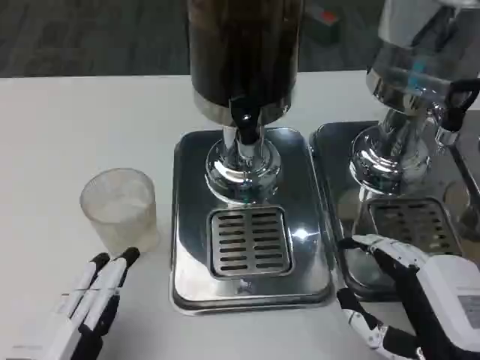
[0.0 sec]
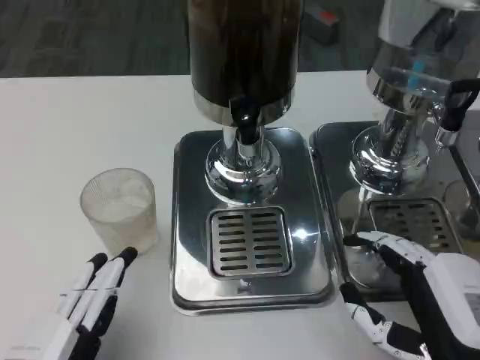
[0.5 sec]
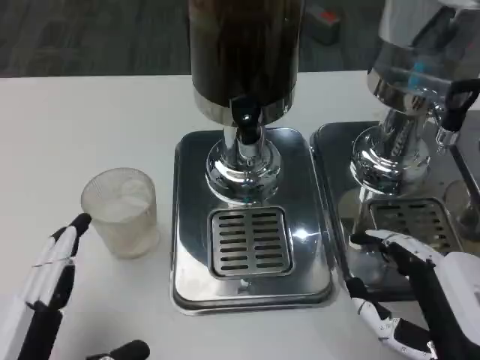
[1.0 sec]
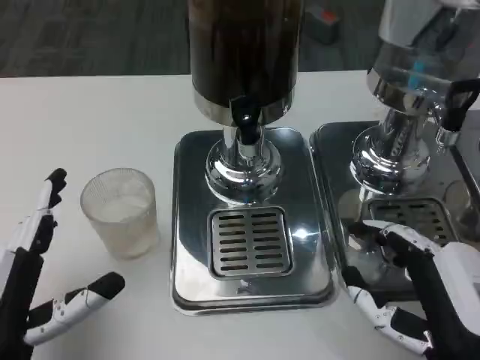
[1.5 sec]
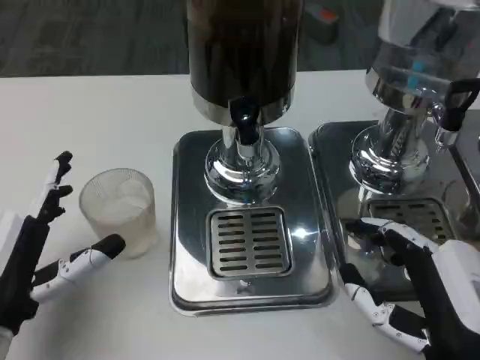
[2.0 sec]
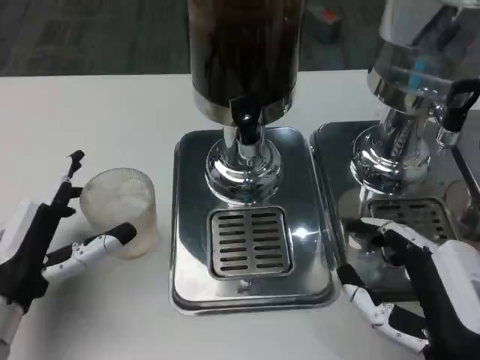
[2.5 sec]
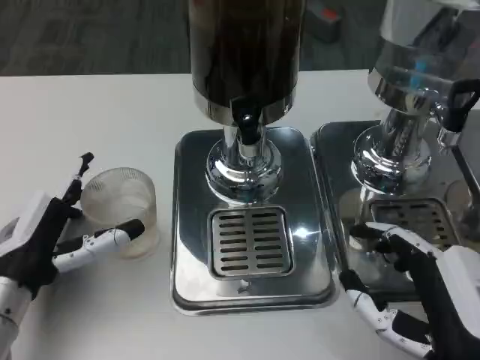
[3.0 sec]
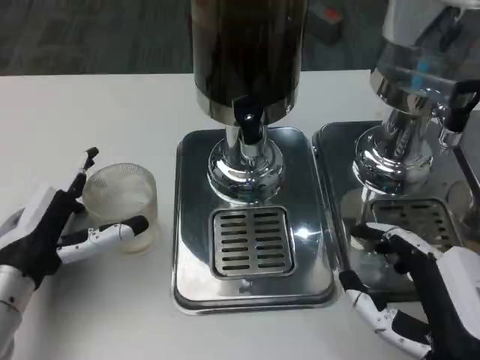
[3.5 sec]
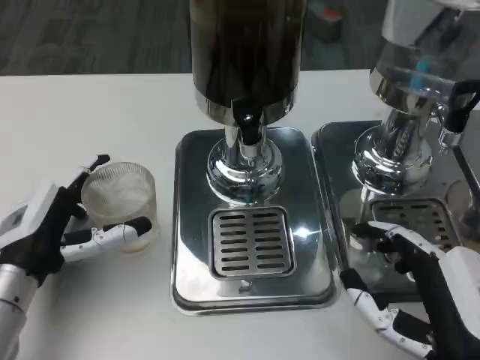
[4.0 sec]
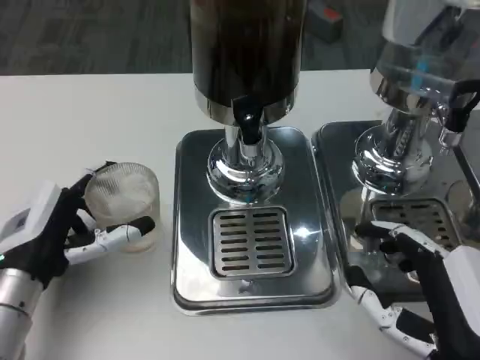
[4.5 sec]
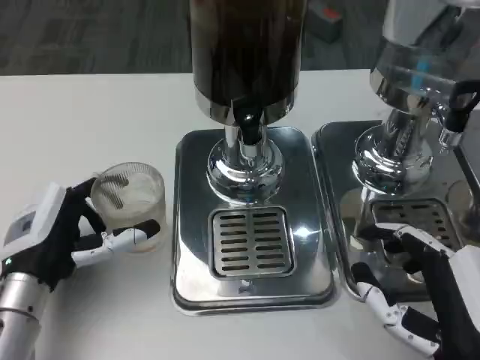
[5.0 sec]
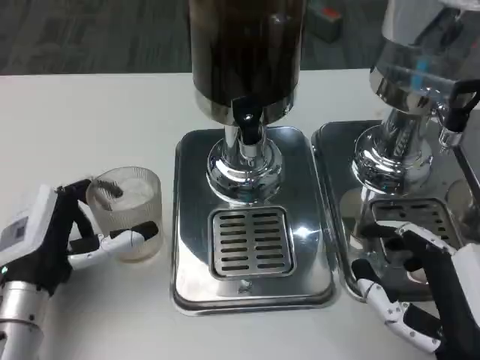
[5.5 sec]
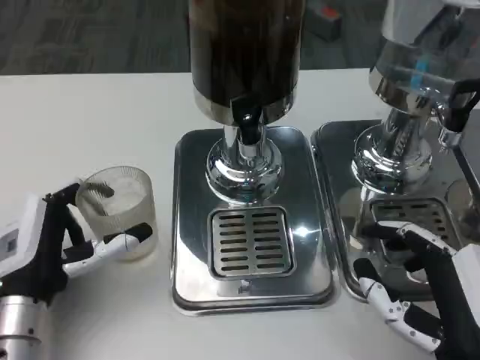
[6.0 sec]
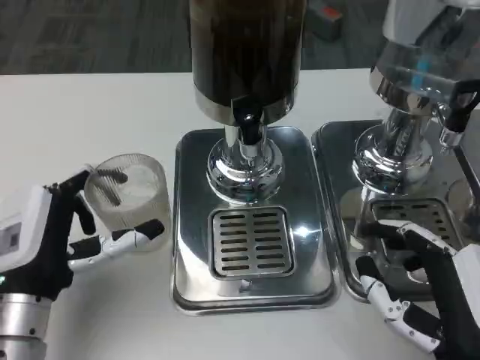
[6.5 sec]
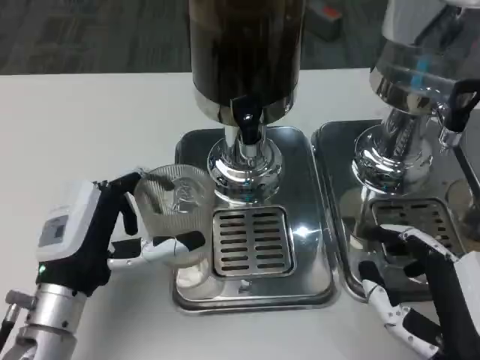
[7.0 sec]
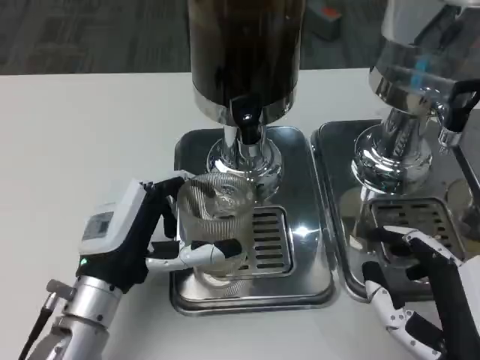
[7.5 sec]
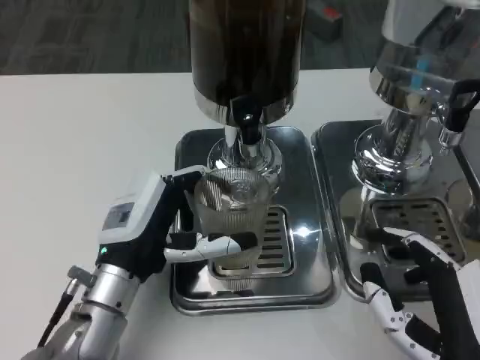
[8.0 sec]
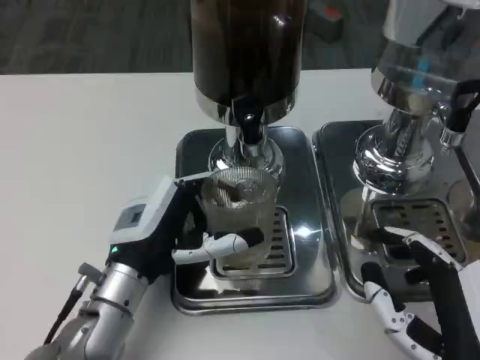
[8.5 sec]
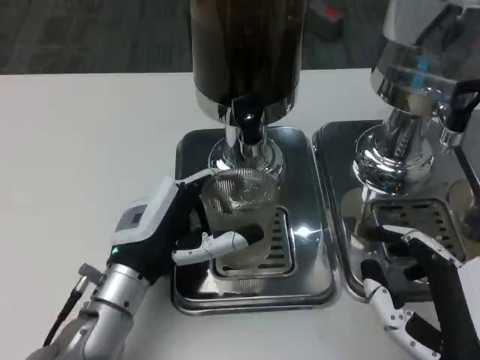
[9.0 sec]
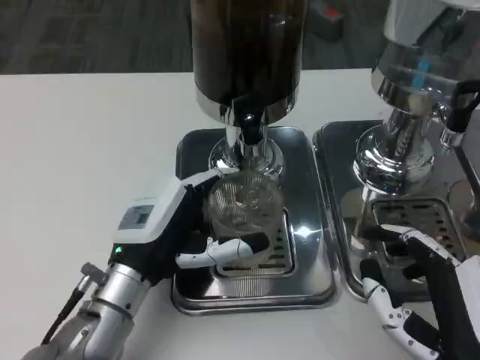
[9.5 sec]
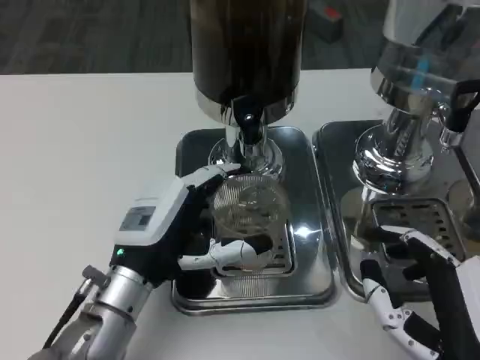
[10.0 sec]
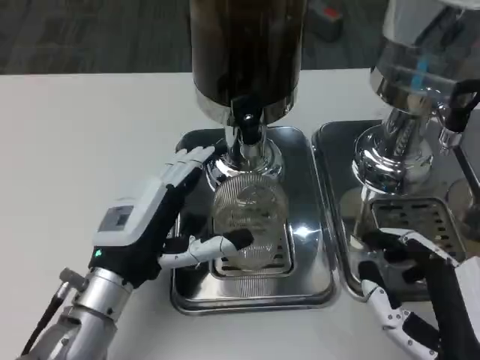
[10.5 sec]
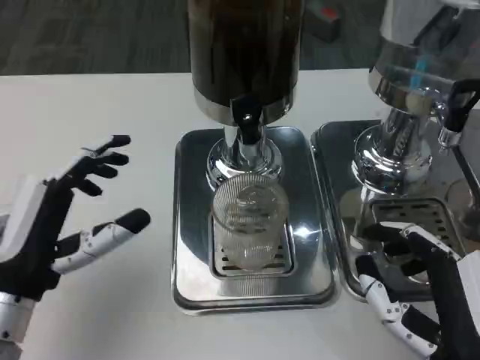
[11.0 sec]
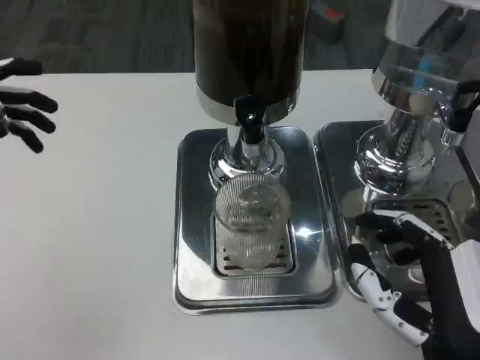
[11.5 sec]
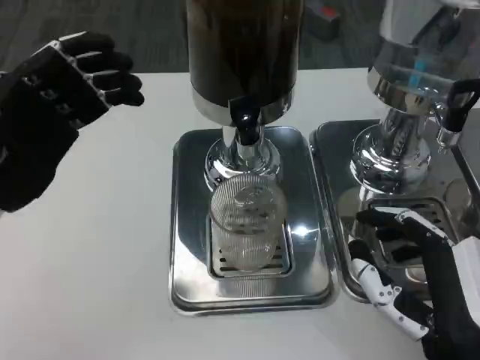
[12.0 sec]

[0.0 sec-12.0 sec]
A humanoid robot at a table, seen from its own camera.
Task of the whole recording: Grasp the cup under the faucet to collect the drink, then remove the cup.
0.0 sec to 2.0 sec: The left hand shifts about 10 cm forward.
2.0 sec to 4.0 sec: The left hand is displaced forward by roughly 5 cm.
4.0 sec to 6.0 sec: The hands stay close to where they were, moving slightly.
6.0 sec to 8.0 sec: The left hand shifts approximately 5 cm to the right.
8.0 sec to 10.0 sec: The hands make only small movements.
10.0 sec to 12.0 sec: The left hand travels to the left and upward by about 15 cm.

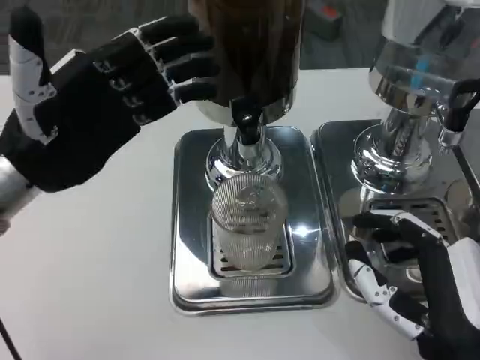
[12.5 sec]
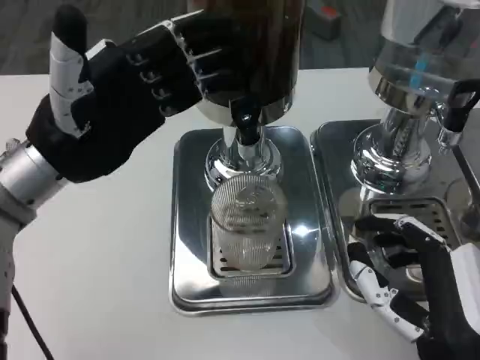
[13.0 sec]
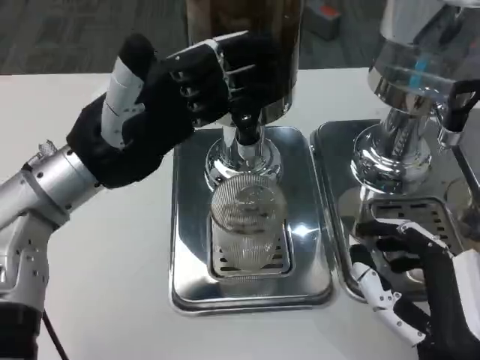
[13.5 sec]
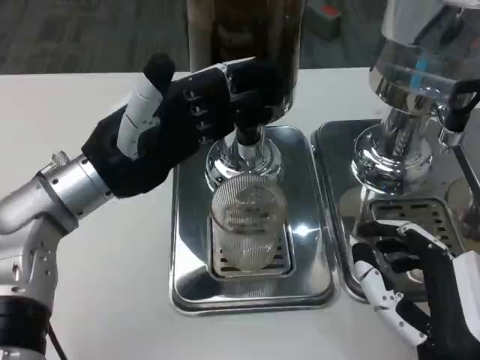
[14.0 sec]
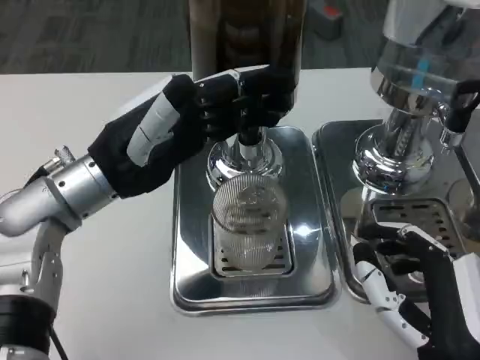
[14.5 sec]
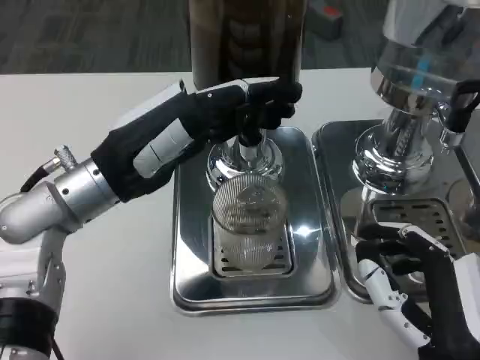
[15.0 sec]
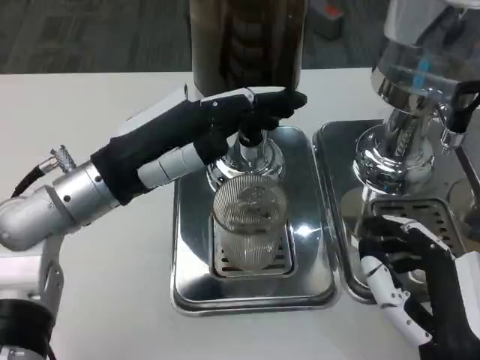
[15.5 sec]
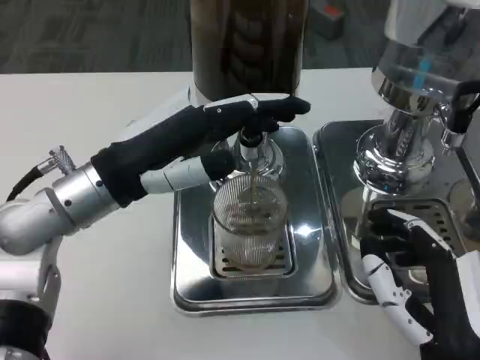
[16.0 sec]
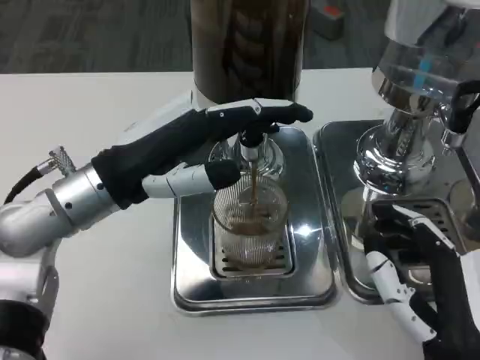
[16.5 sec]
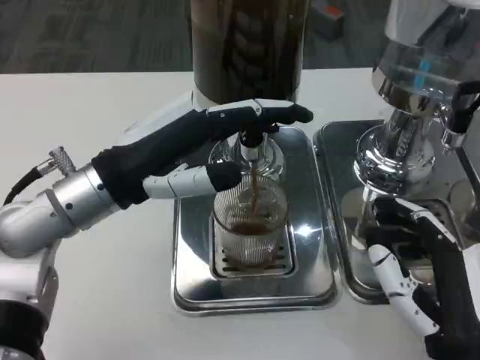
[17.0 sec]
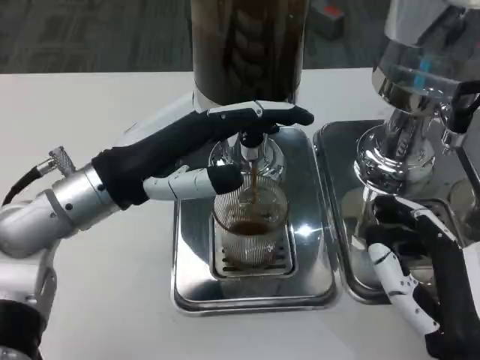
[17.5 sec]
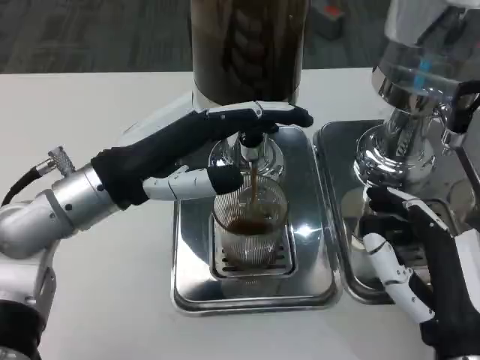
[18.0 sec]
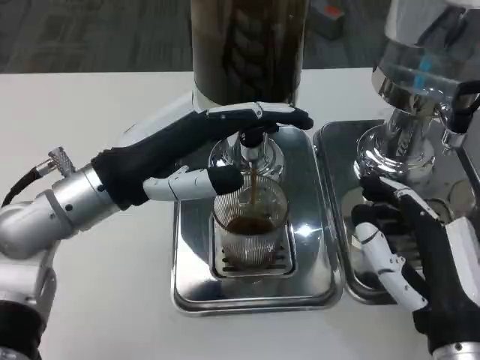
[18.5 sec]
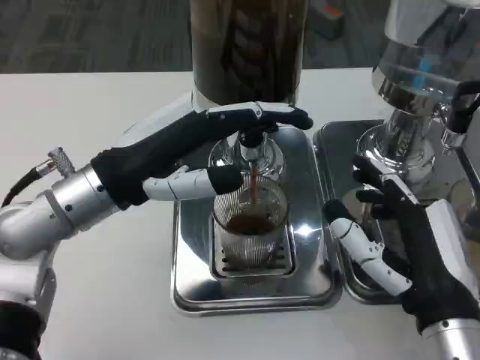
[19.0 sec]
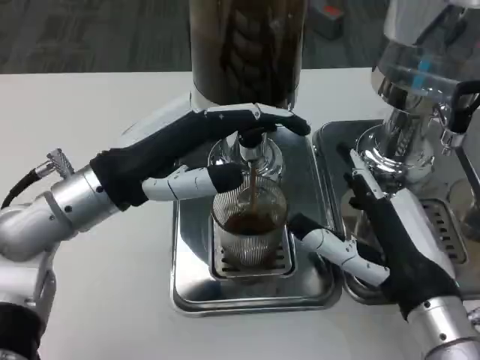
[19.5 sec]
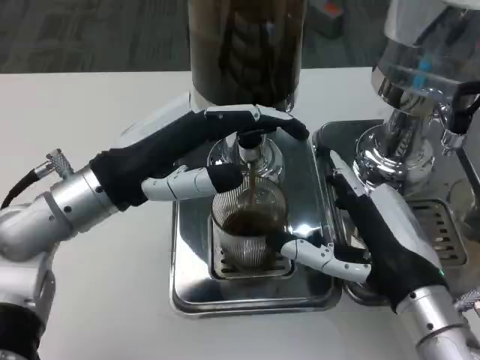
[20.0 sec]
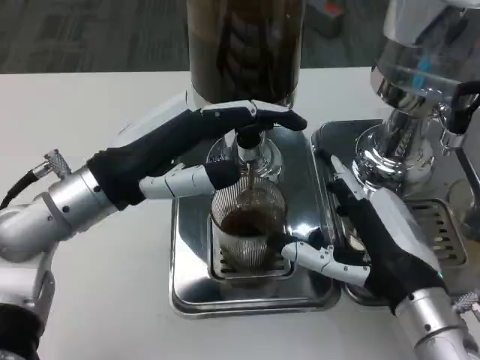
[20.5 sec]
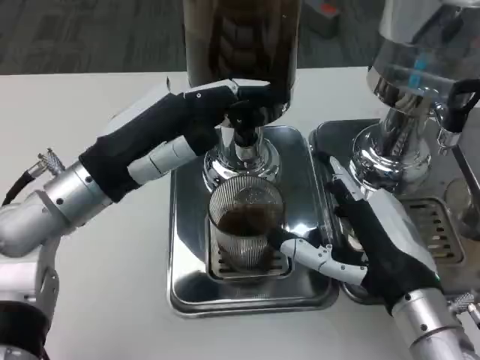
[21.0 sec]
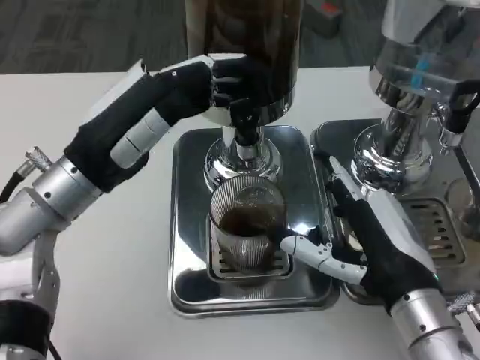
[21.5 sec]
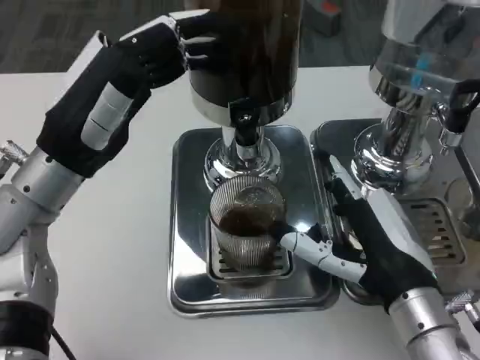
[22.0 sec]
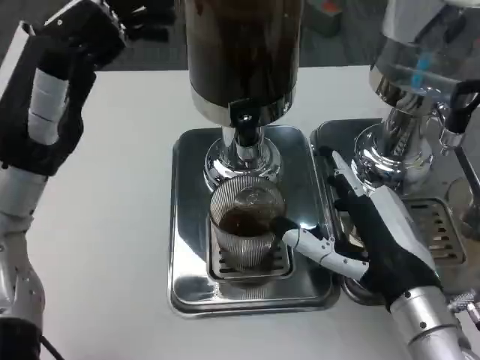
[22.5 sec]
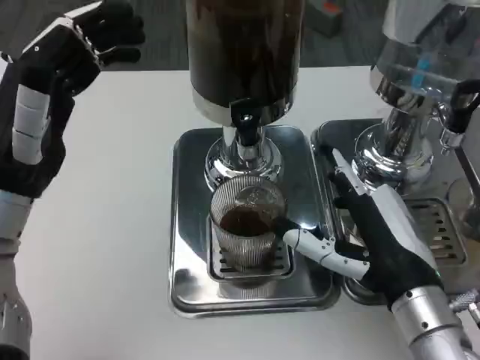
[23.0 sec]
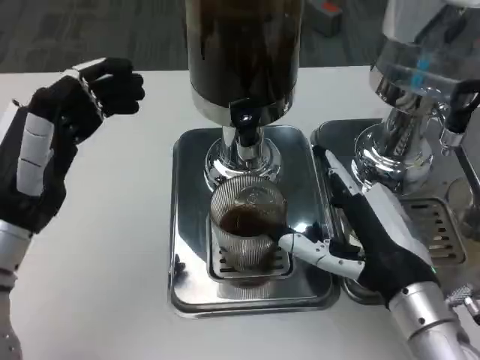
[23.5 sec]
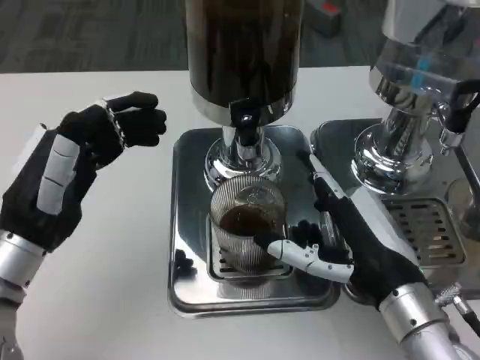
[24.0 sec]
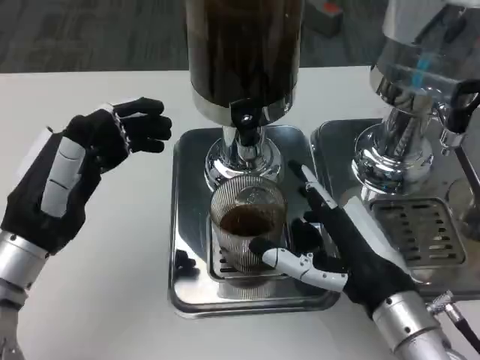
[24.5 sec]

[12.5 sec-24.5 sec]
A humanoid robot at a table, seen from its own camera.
Task of the whole recording: Grasp the cup under the faucet to collect the drink, then remove the cup.
12.5 sec to 14.5 sec: The left hand travels to the right by some 5 cm.
16.5 sec to 18.5 sec: There are only small adjustments of the hands.
22.5 sec to 24.5 sec: The left hand shifts roughly 5 cm downward.

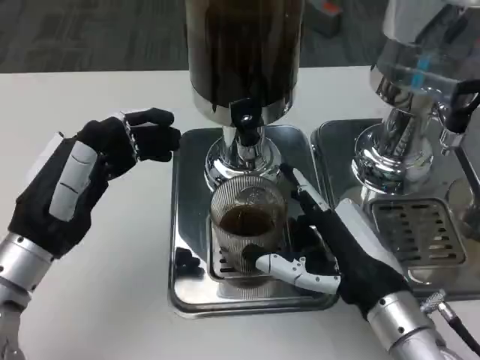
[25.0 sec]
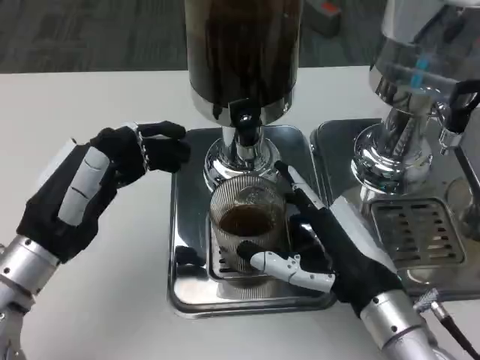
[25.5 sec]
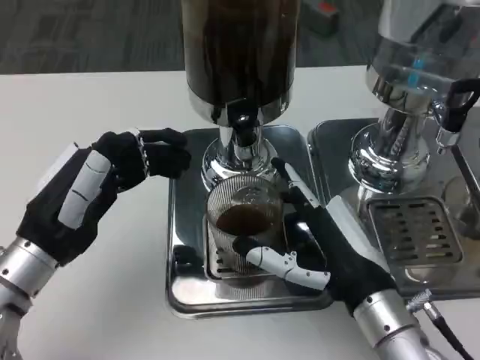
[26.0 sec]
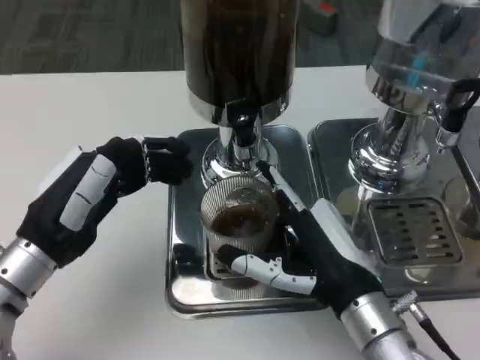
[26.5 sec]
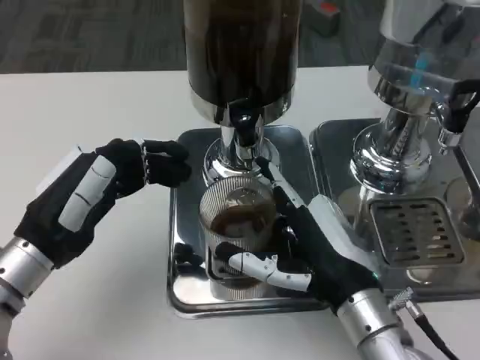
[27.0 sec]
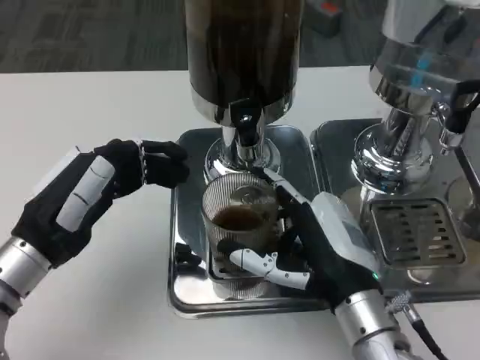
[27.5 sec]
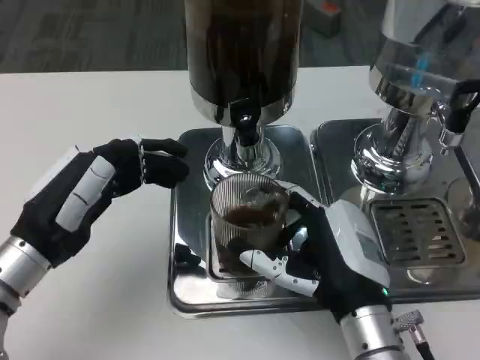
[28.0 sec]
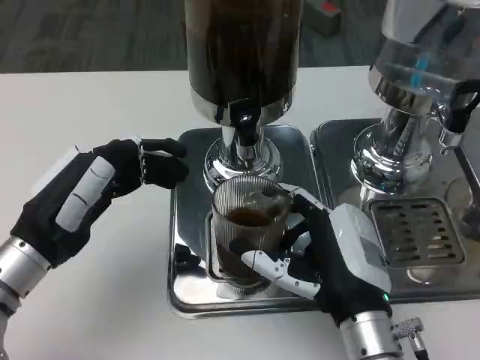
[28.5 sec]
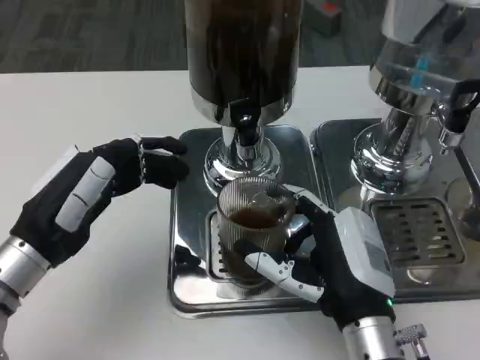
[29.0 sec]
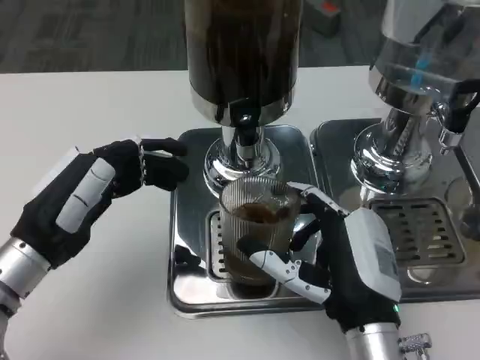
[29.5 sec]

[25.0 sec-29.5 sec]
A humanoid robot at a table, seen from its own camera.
Task of the whole recording: Grasp the cup under the faucet to collect the drink, then remove the cup.
27.0 sec to 29.5 sec: There are only small adjustments of the hands.
